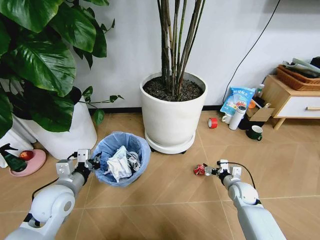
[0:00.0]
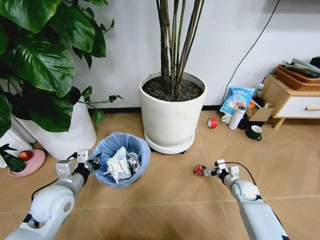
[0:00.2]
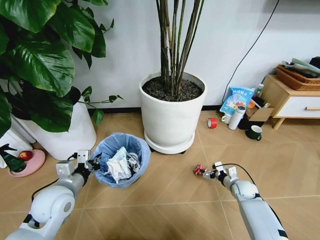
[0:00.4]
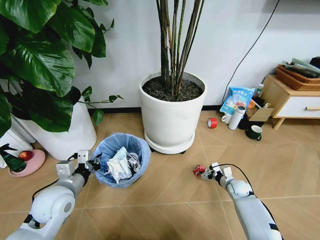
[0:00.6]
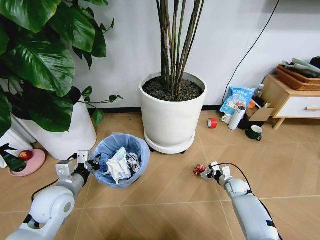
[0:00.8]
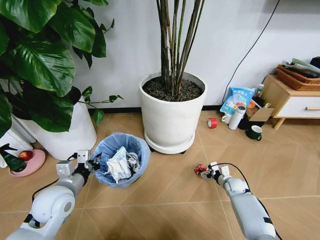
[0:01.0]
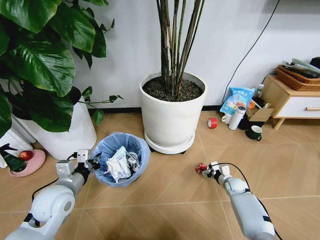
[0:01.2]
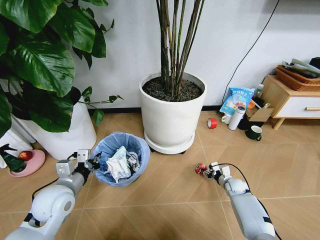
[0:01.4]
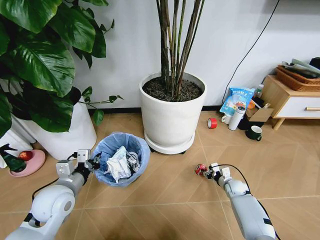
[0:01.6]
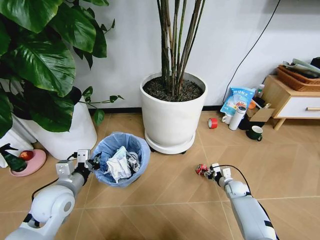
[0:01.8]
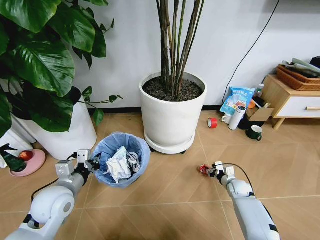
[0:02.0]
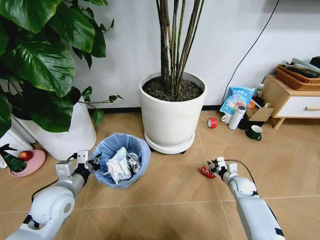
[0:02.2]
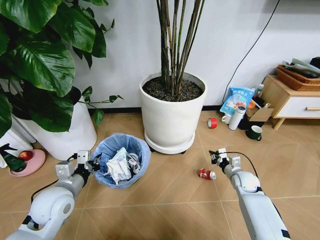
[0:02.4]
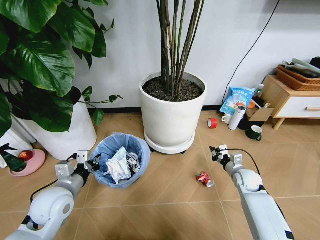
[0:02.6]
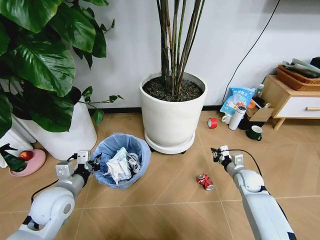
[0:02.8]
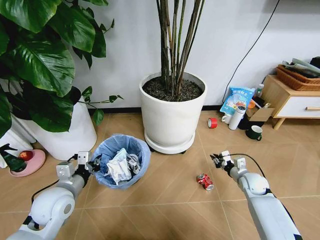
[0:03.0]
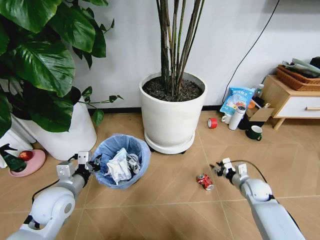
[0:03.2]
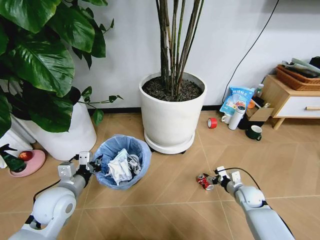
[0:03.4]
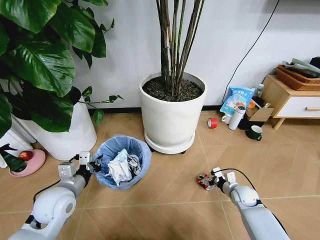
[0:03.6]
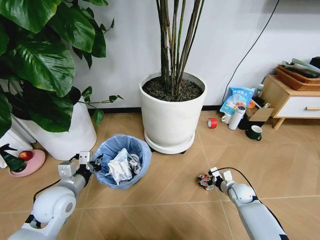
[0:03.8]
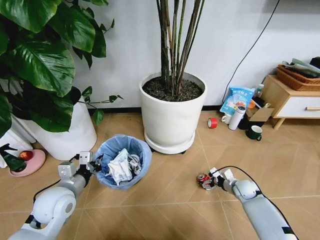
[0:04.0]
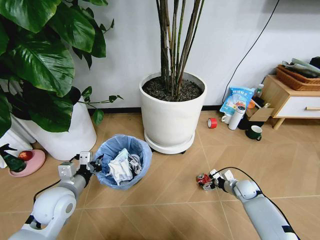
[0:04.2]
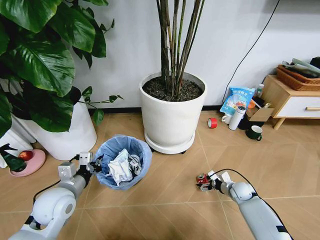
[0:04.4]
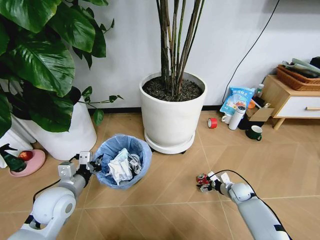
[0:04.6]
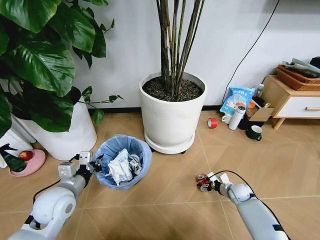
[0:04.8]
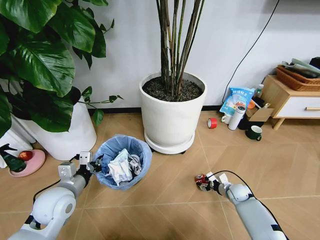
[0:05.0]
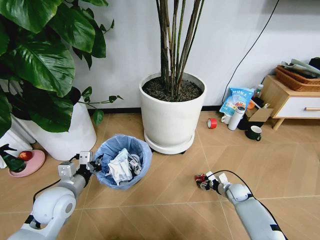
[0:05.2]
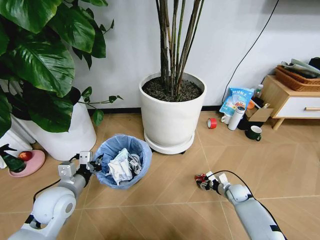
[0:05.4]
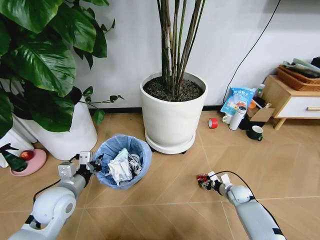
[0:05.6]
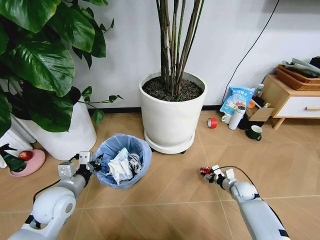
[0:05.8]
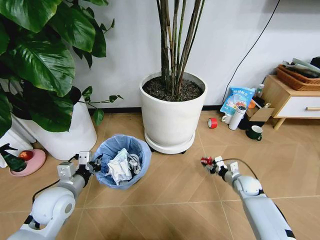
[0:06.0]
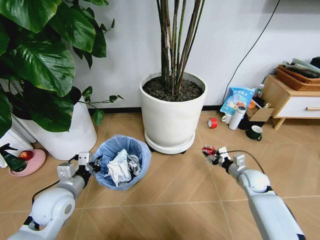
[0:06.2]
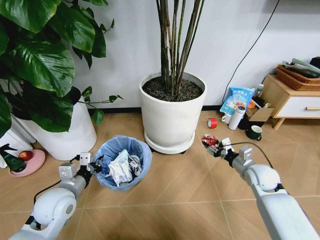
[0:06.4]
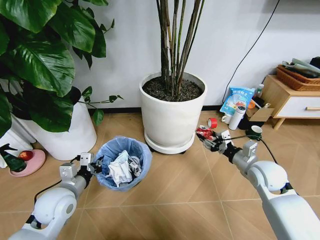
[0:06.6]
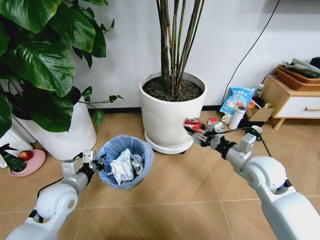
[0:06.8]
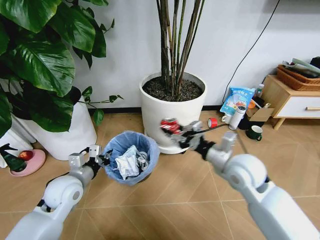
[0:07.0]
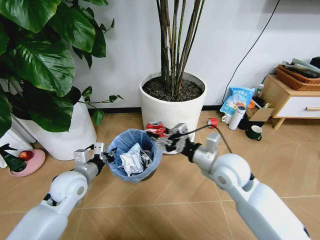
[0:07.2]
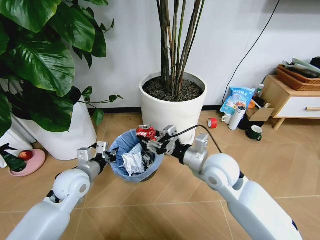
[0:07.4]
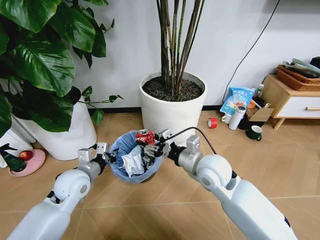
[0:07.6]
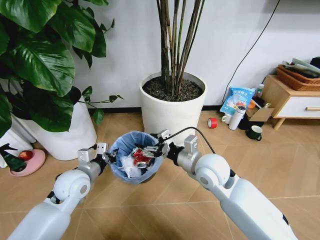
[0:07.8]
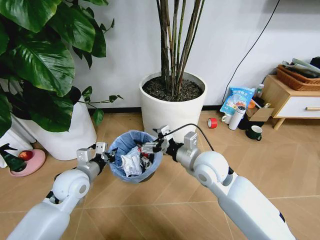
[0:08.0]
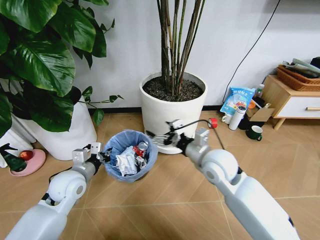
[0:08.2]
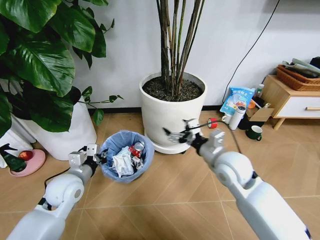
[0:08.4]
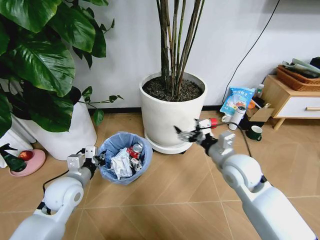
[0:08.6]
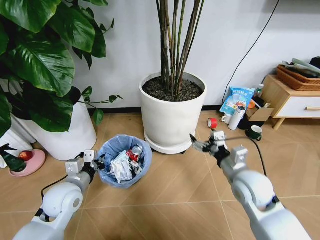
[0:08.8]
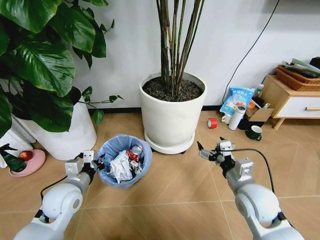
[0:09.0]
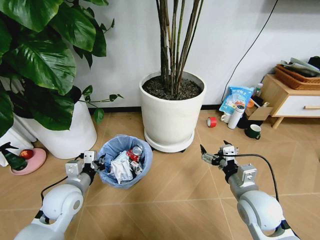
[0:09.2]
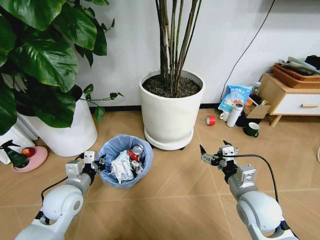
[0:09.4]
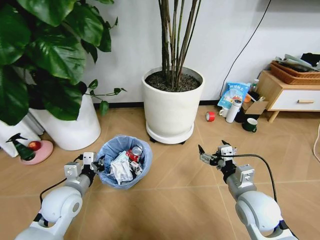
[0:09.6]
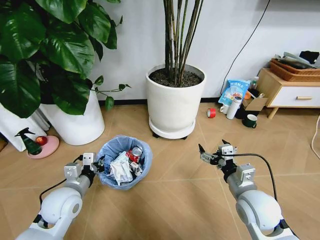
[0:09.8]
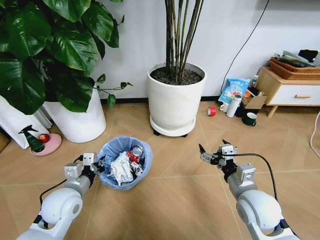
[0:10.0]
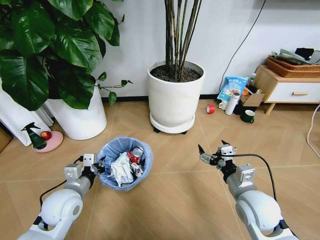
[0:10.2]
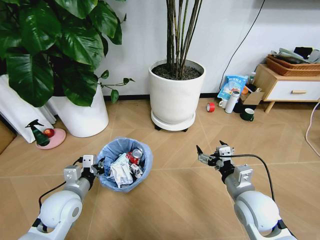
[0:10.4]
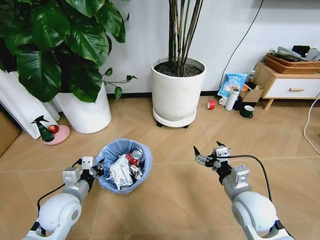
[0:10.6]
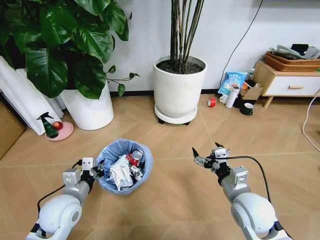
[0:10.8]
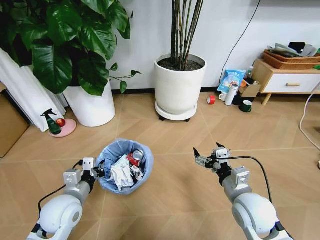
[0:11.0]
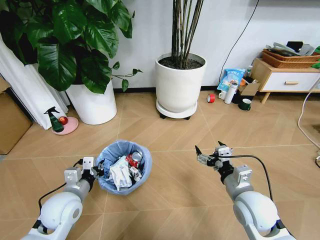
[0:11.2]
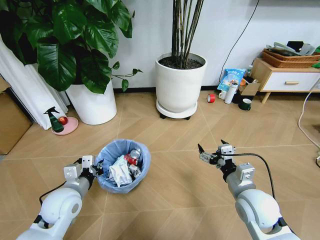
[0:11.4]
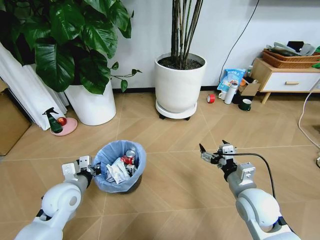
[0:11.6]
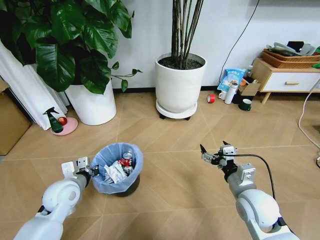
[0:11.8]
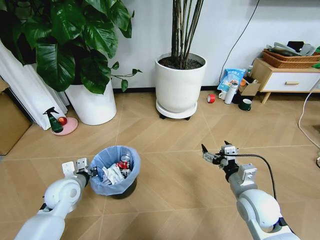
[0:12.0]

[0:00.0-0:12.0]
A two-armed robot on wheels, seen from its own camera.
Task of the whole recording: Pick up the trash bin and place the garbage on the floor into it.
0:00.0 to 0:01.6: The right gripper shifts about 10 cm downward and forward, and closes up.
0:01.6 to 0:03.0: The right gripper shifts approximately 10 cm upward.
0:03.0 to 0:04.4: The right gripper is displaced downward by about 10 cm, and opens its fingers.
0:04.4 to 0:06.0: The right gripper closes its fingers.
0:06.0 to 0:07.6: The right gripper goes about 35 cm upward and to the left. Meanwhile the left gripper goes roughly 5 cm forward.
0:07.6 to 0:09.0: The right gripper shifts approximately 15 cm to the right and backward, and opens up.
0:10.4 to 0:12.0: The left gripper is displaced forward by approximately 5 cm.

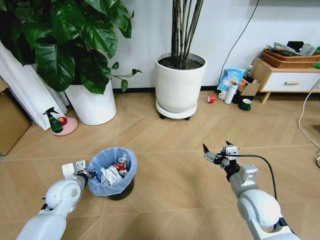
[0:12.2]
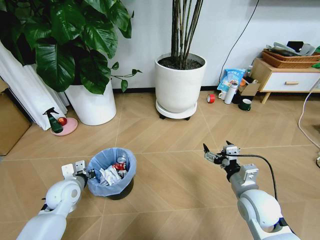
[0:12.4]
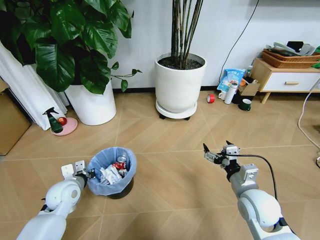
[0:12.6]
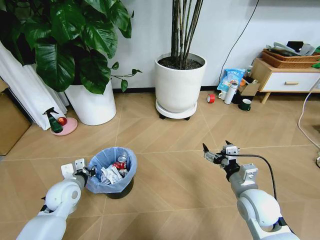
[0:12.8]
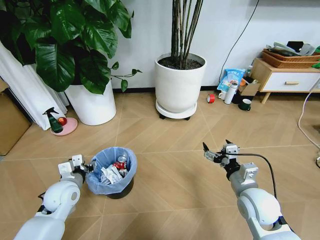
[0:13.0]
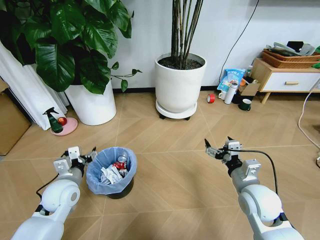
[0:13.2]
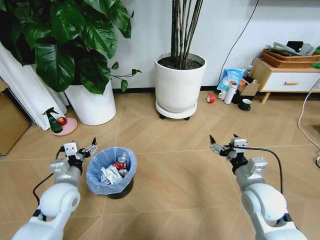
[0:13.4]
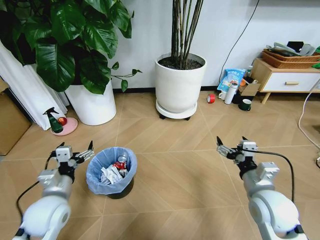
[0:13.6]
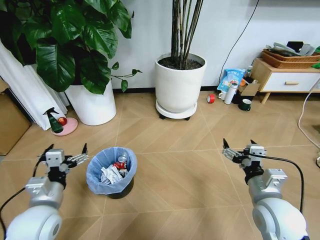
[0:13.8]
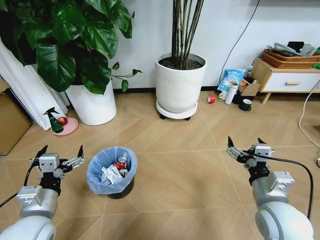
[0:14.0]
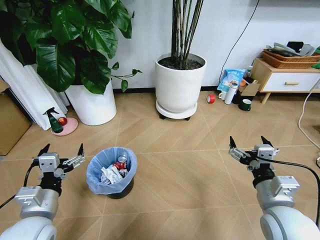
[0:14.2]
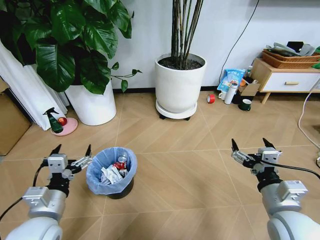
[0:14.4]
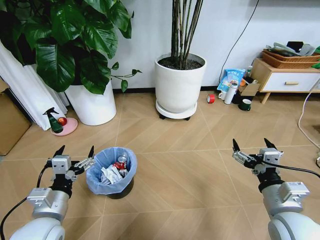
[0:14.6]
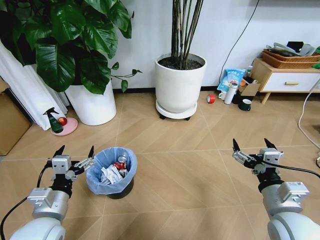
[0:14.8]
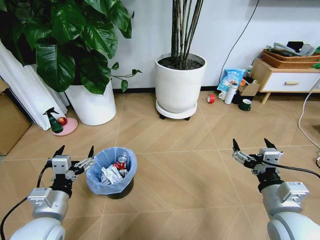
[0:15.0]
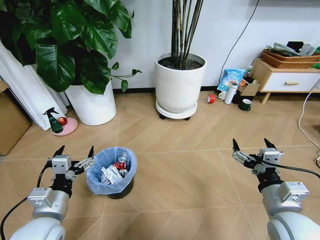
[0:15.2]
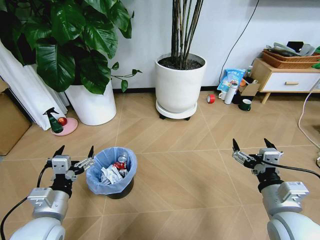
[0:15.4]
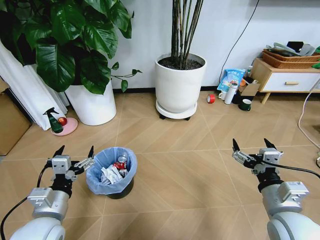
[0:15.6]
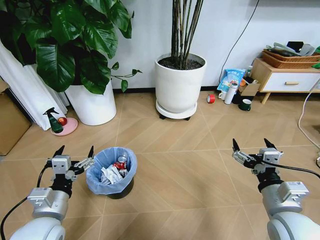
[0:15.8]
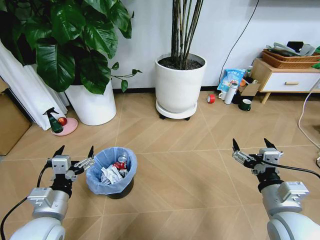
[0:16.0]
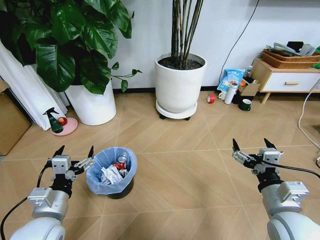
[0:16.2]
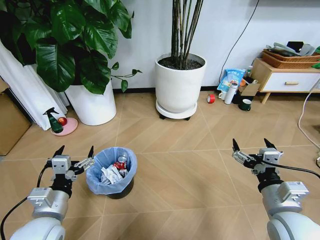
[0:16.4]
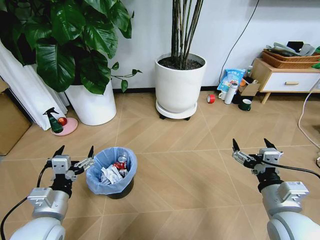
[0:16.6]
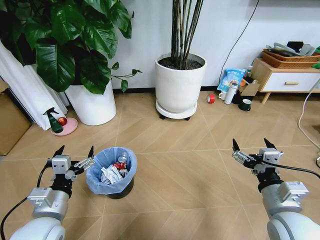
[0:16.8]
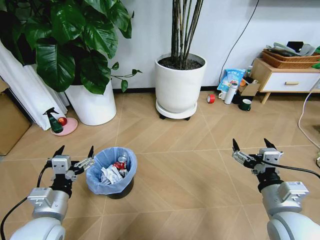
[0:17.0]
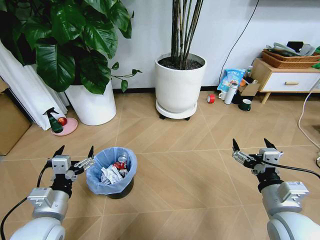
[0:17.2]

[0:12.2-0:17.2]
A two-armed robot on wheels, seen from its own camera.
Task of the whole recording: Pick up the trash bin and place the garbage on the floor into it.
0:12.2 to 0:13.8: The right gripper ends up some 5 cm from where it was, while the left gripper goes about 15 cm backward and upward, and opens its fingers.
0:13.8 to 0:15.6: There are only small adjustments of the grippers.
0:15.6 to 0:17.2: Neither gripper changes place.

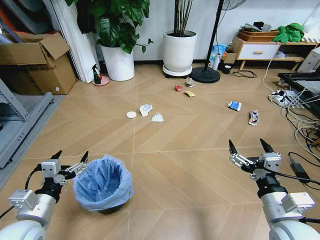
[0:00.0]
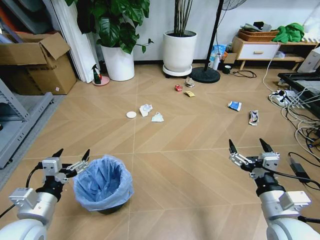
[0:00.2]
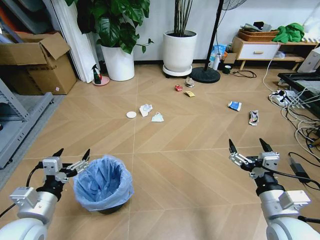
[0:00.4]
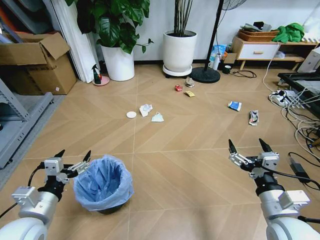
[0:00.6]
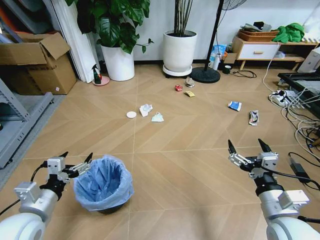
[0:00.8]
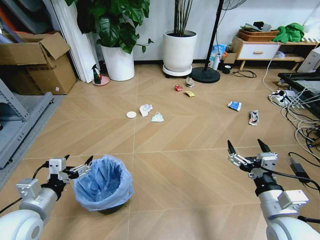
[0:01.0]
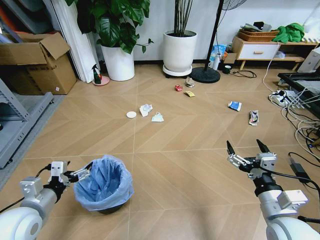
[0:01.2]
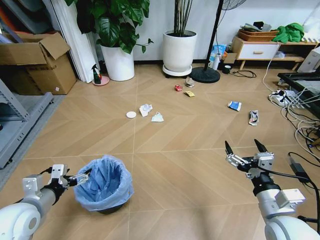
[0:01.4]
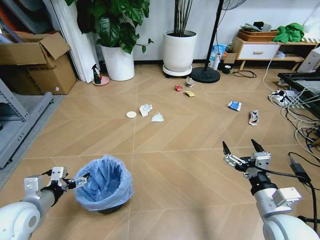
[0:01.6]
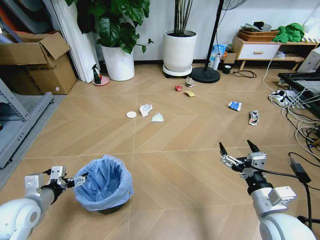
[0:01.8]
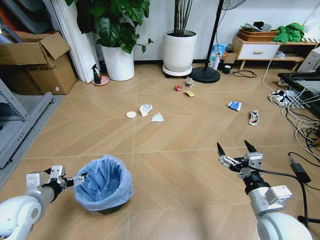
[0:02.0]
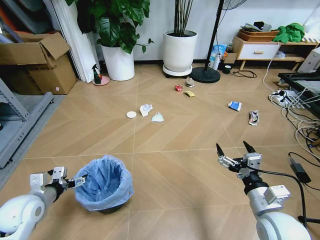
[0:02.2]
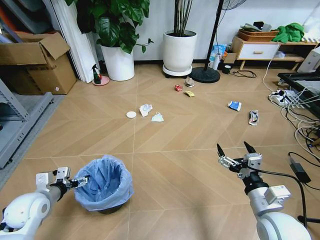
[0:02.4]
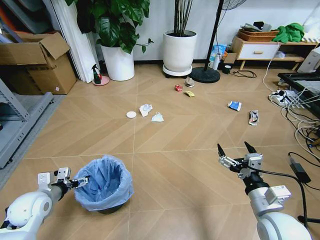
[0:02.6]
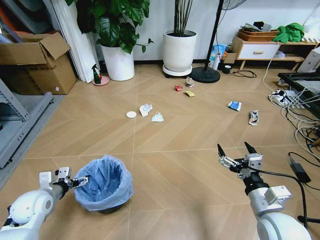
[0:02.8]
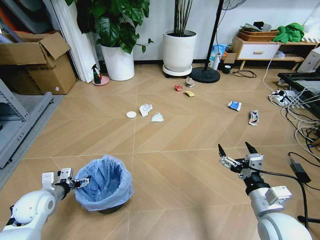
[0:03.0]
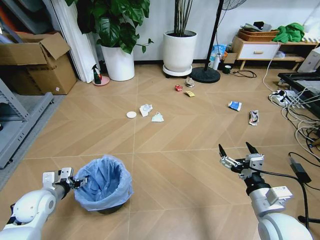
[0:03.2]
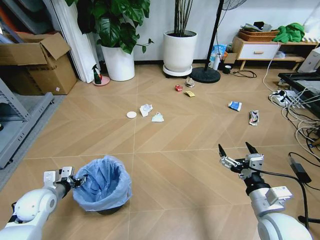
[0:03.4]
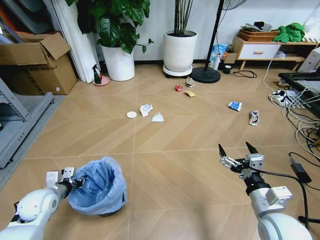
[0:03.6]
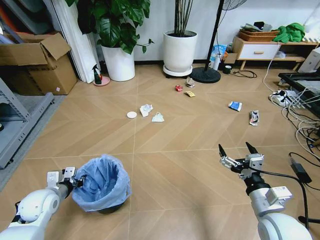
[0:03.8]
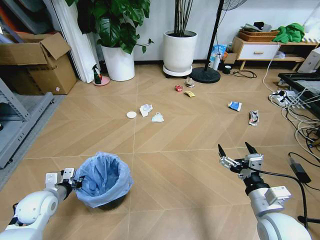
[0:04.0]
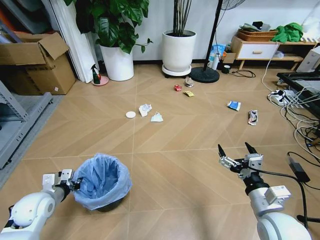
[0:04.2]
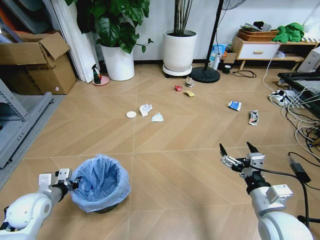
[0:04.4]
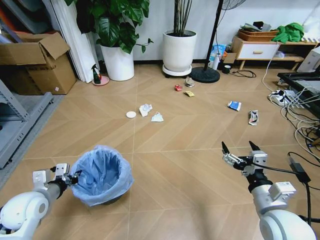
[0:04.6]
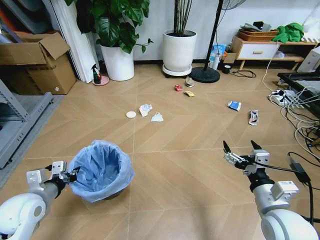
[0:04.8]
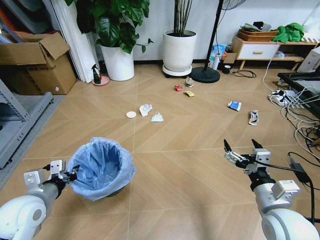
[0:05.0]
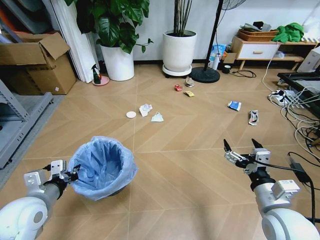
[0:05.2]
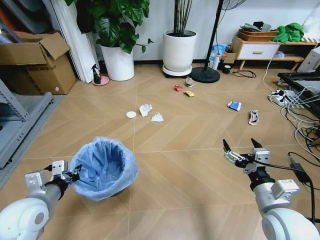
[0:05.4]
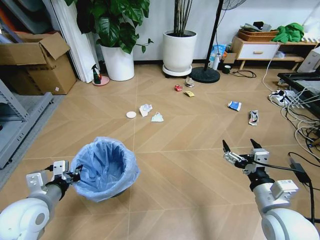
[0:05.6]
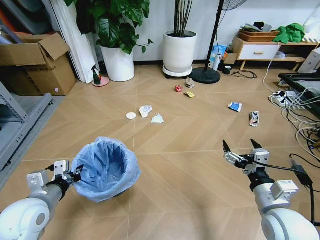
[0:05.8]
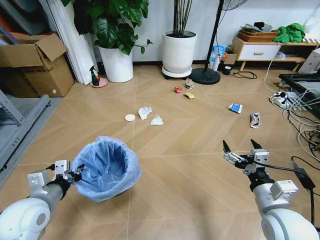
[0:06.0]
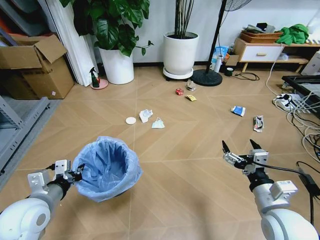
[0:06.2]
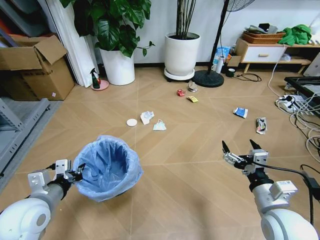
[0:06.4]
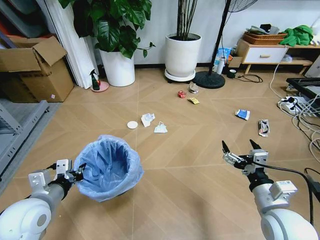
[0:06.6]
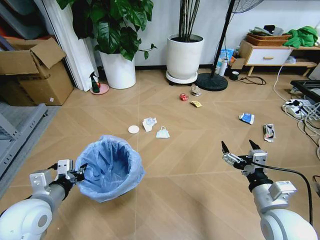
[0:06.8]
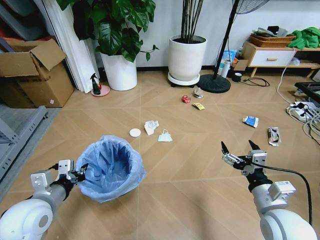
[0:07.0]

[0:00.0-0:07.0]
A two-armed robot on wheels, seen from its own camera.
Task of the whole recording: Pick up the trash bin and place the garbage on the floor into it.
0:01.4 to 0:02.8: The left gripper shifts some 10 cm downward and forward.
0:02.8 to 0:04.2: The left gripper closes up.
0:04.2 to 0:05.6: The left gripper moves upward, to the right and backward, some 10 cm.
